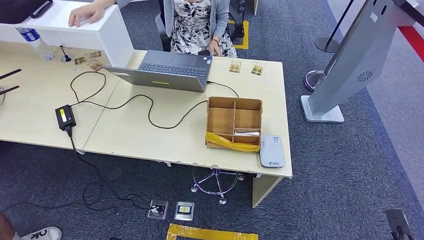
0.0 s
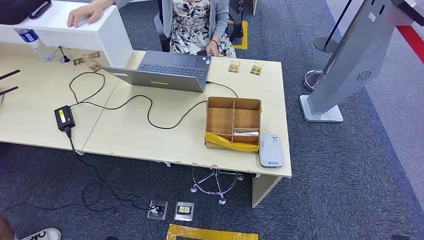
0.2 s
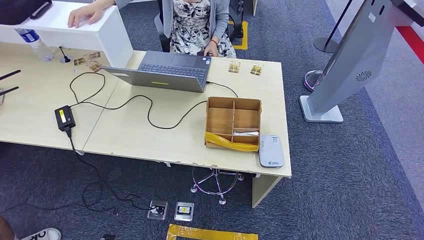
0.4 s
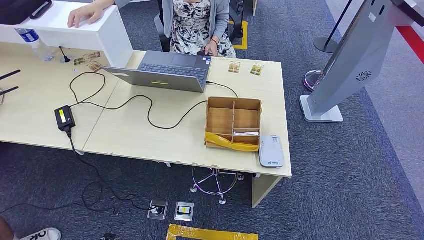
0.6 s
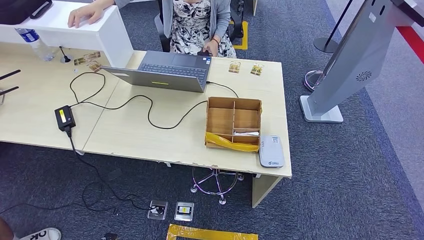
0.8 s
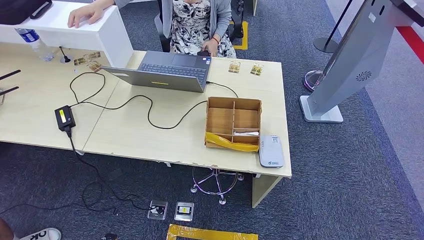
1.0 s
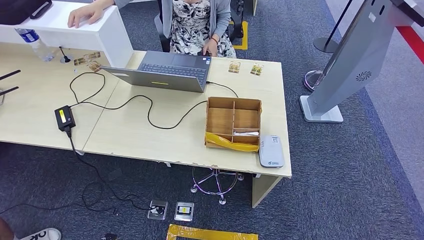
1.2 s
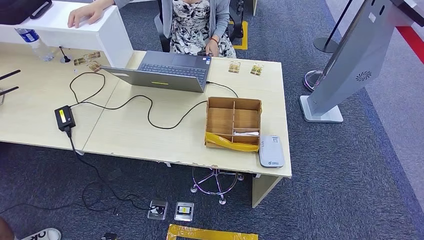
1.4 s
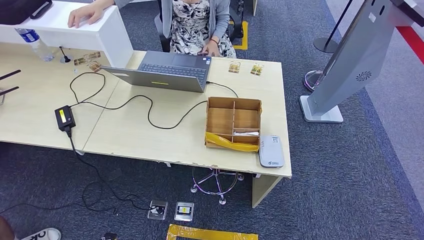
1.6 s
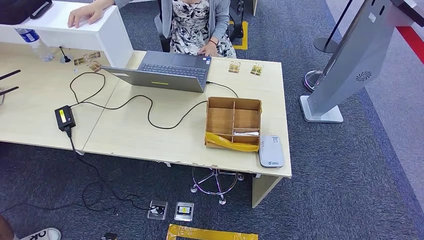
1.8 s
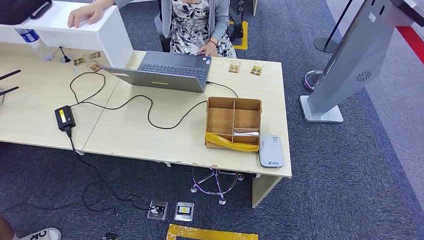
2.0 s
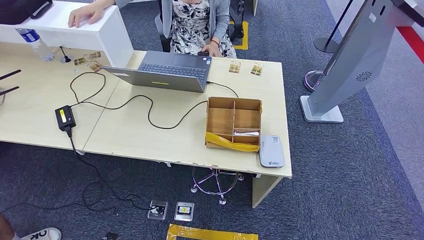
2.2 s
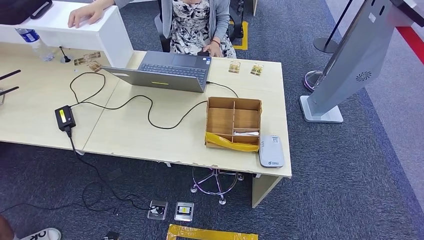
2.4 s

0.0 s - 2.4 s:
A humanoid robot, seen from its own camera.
Step, 0.0 s - 2.4 s: Hand the room key to the person.
0.0 s - 1.2 s: The right hand moves to the left, backward and downward, about 15 cm.

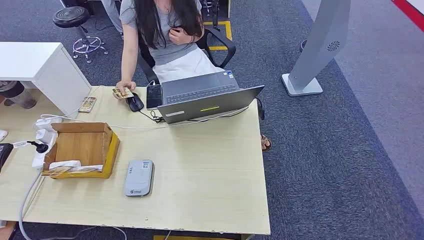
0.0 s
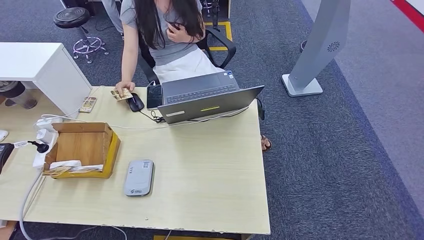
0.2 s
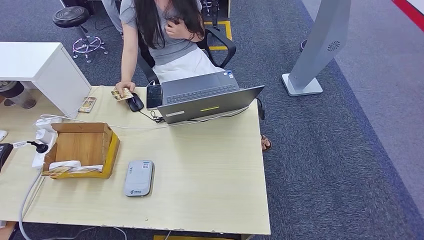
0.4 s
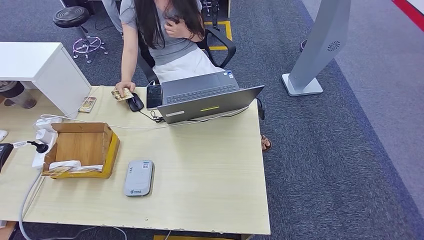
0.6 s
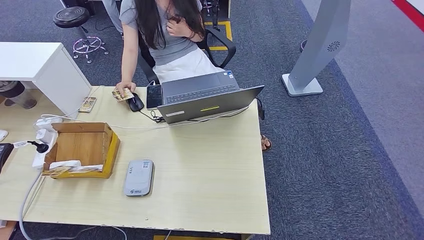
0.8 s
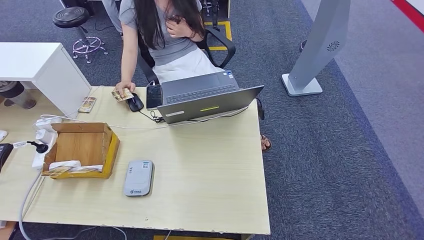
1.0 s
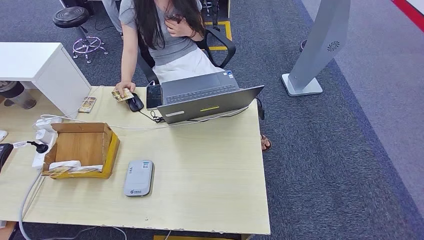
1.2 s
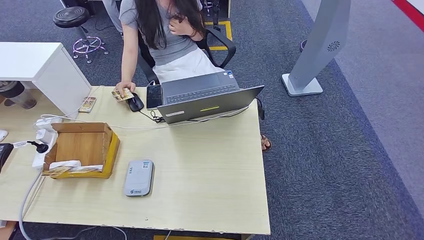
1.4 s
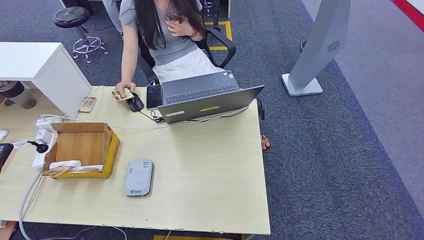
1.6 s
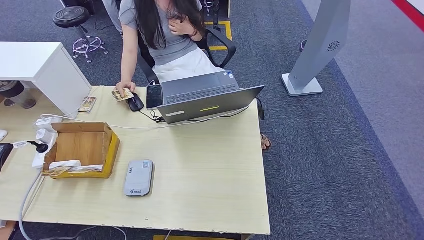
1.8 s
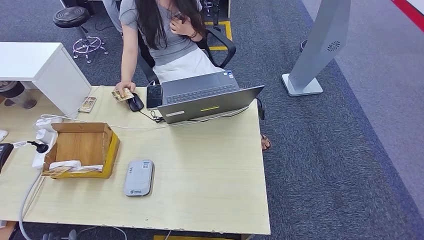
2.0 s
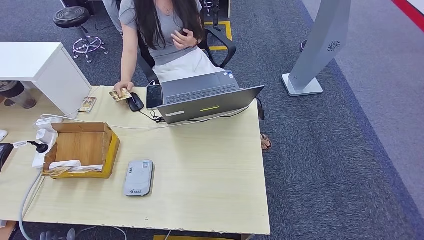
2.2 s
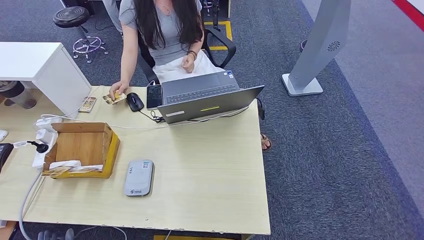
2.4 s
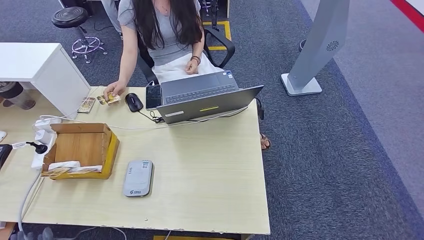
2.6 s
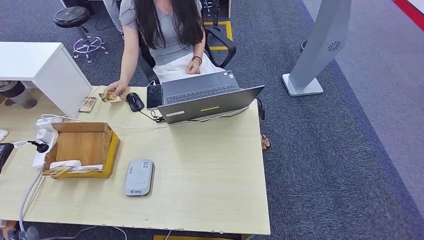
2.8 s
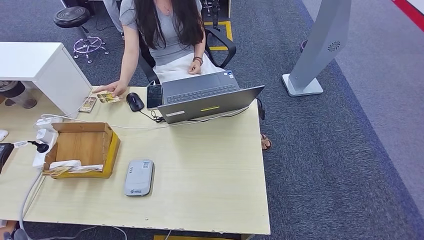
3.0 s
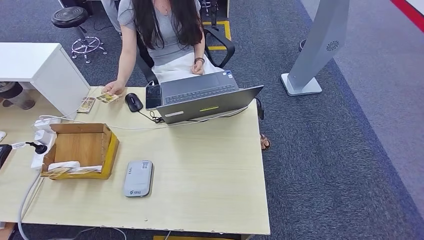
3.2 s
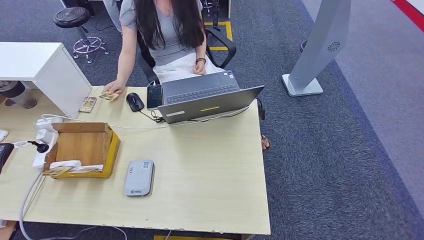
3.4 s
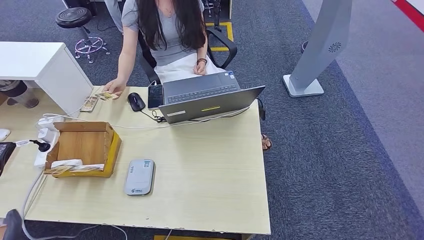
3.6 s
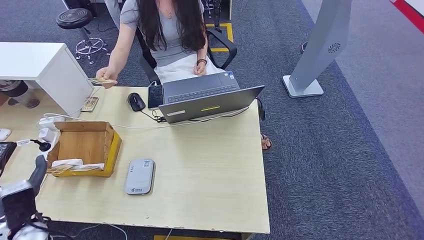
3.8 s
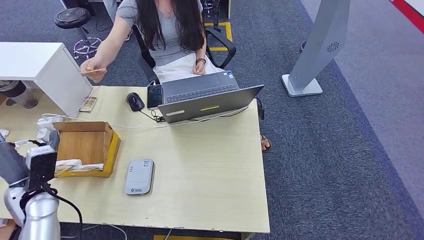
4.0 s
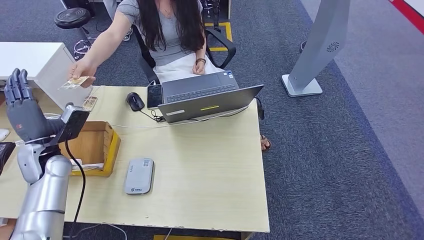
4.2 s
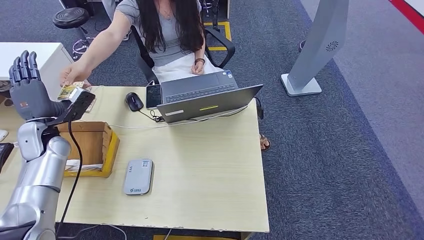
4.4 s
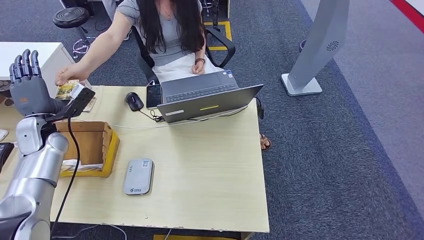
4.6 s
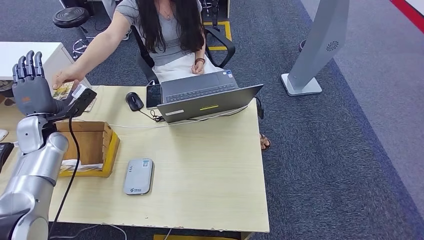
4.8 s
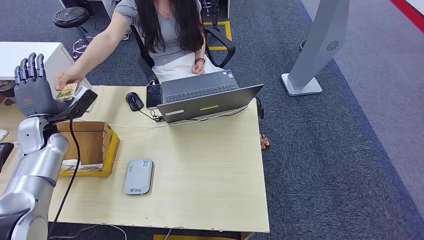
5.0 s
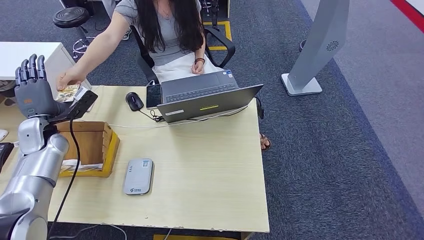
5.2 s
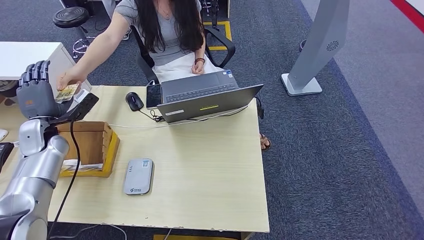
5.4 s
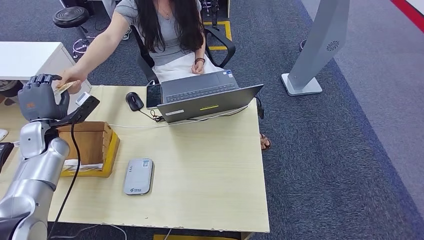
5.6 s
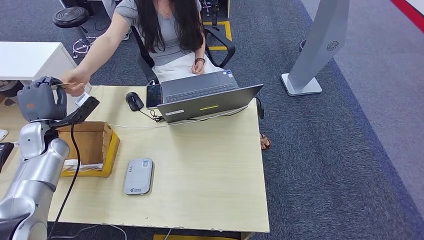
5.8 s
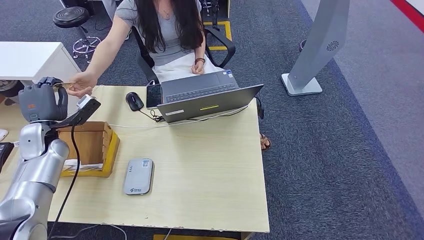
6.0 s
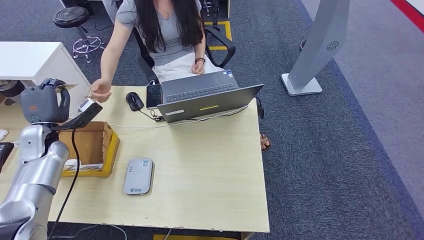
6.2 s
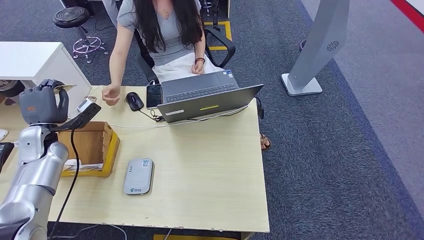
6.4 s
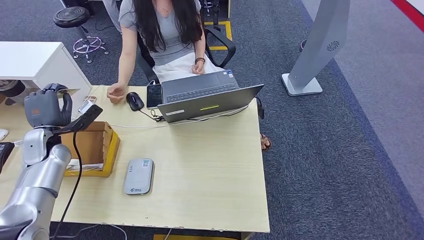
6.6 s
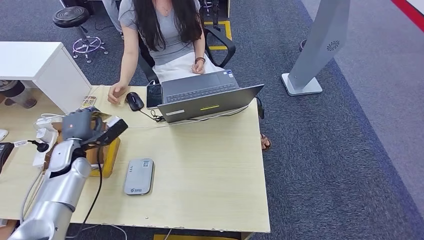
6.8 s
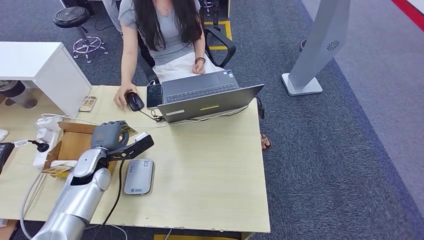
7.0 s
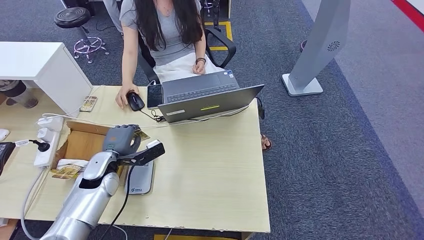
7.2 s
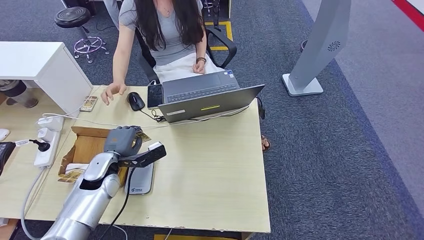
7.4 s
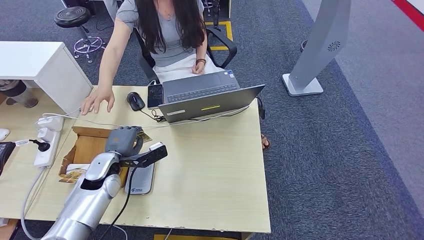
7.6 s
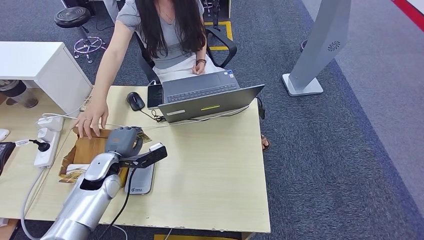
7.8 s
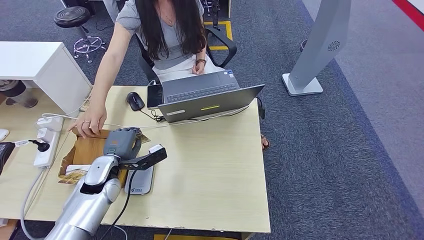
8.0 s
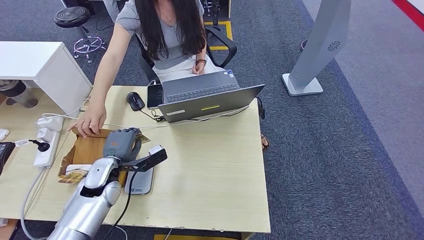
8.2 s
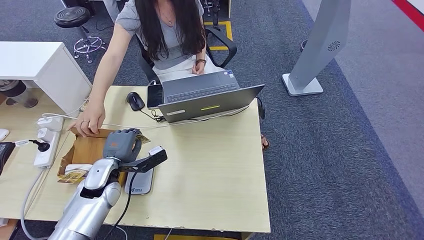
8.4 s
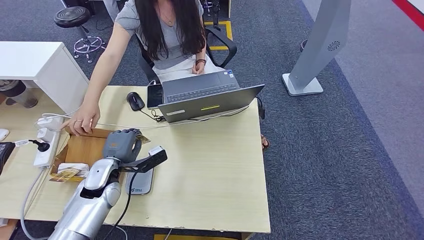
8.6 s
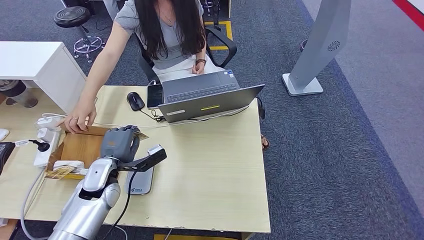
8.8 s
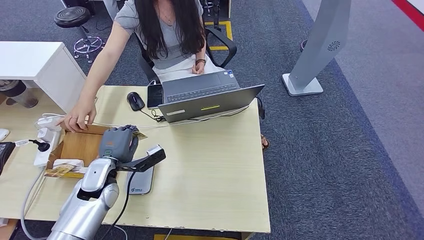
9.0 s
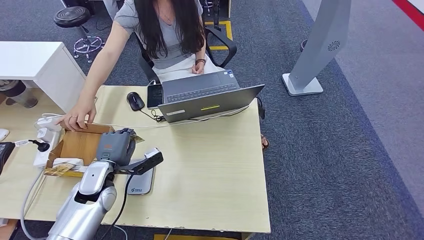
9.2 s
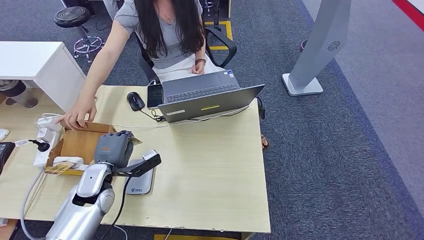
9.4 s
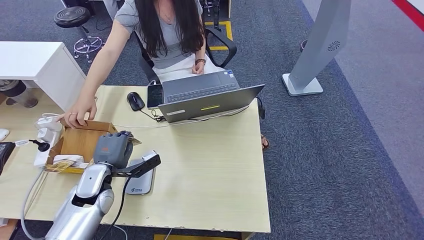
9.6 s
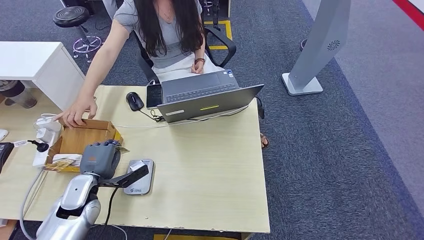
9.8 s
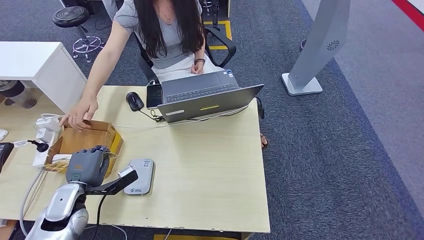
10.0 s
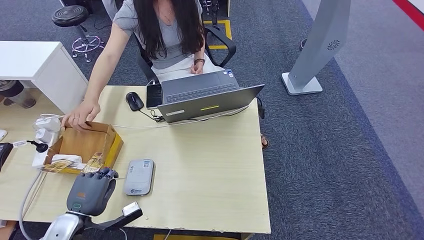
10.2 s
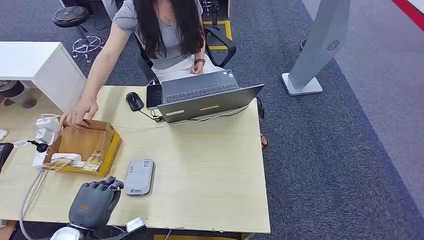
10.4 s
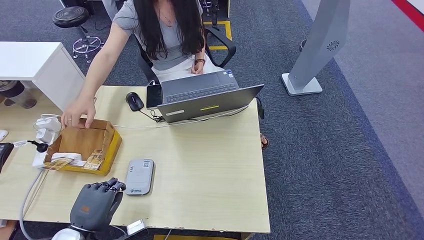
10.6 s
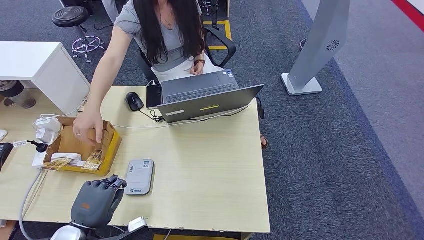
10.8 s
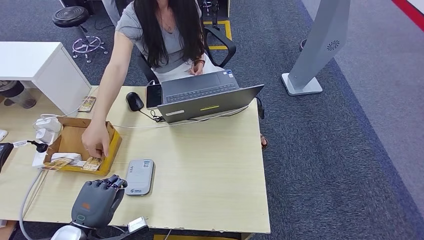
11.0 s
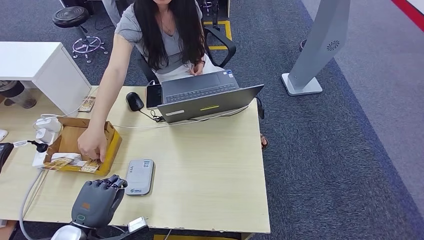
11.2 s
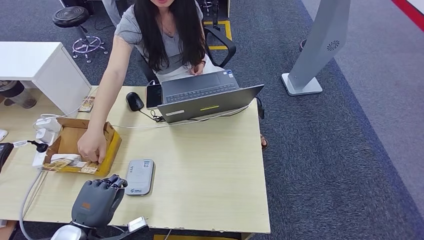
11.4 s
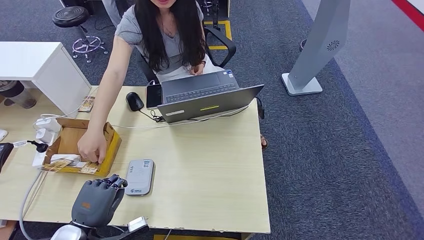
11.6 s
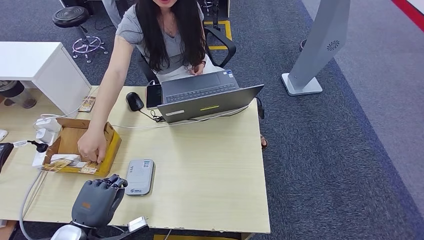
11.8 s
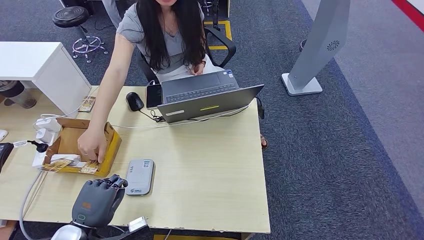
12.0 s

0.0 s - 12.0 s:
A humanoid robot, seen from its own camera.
Step, 0.0 s - 6.0 s: Take the ID card from the person's hand.
1.6 s - 3.0 s: The left hand travels upward by about 10 cm.
3.0 s - 4.4 s: The left hand moves forward and upward, roughly 35 cm.
4.4 s - 6.0 s: The hands make only small movements.
6.0 s - 7.6 s: The left hand goes some 20 cm to the right and downward.
7.6 s - 9.0 s: The hands move only a little.
9.0 s - 10.4 s: The left hand moves backward, approximately 15 cm.
10.4 s - 12.0 s: Both hands stay about where they are.

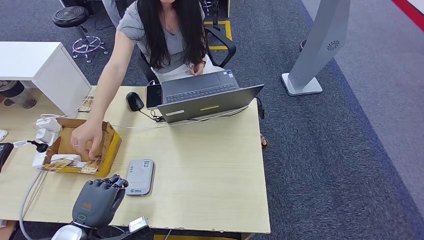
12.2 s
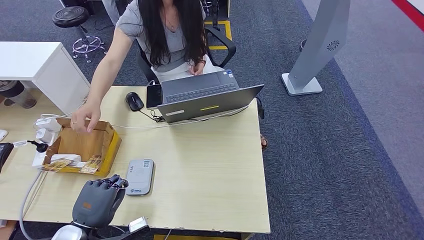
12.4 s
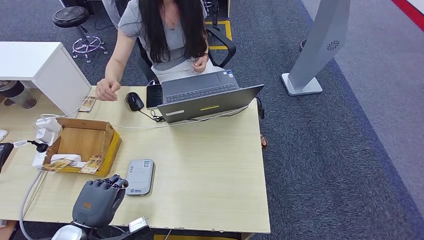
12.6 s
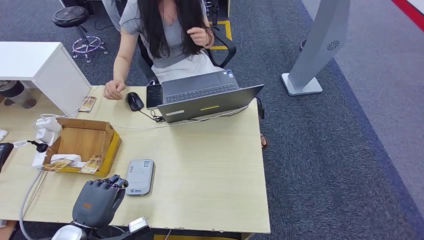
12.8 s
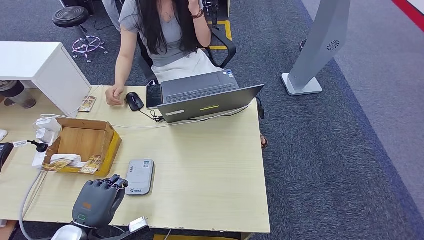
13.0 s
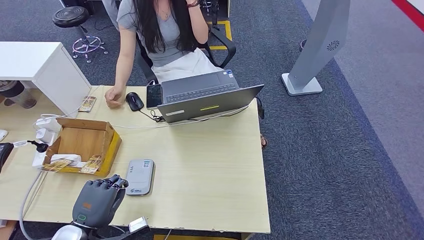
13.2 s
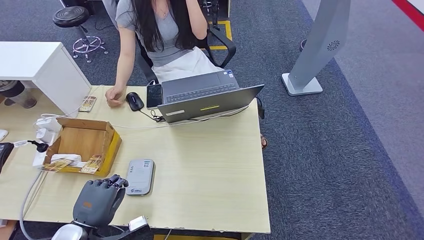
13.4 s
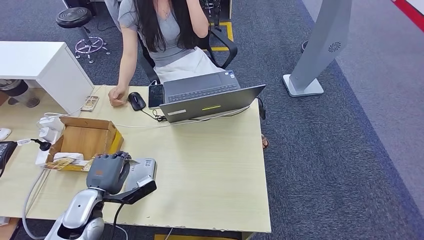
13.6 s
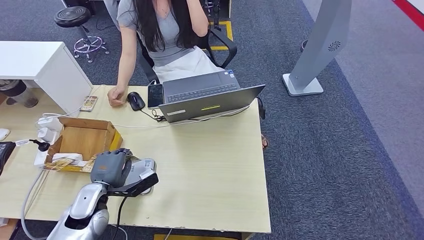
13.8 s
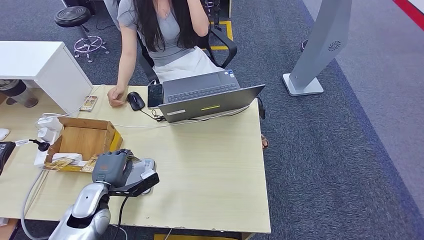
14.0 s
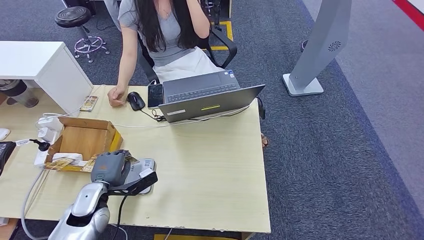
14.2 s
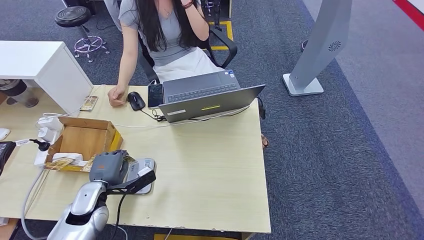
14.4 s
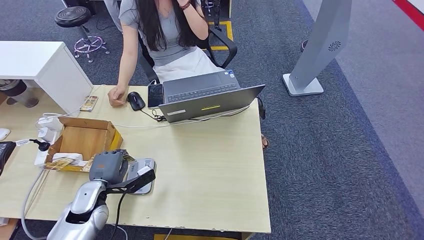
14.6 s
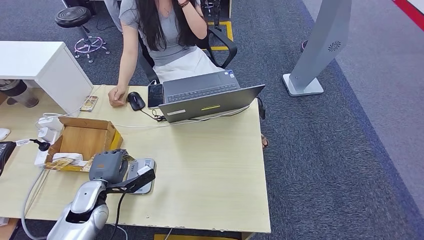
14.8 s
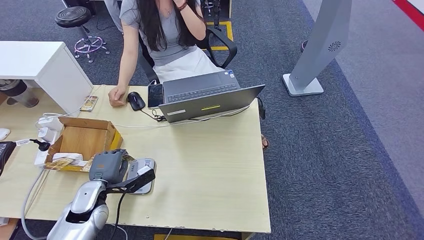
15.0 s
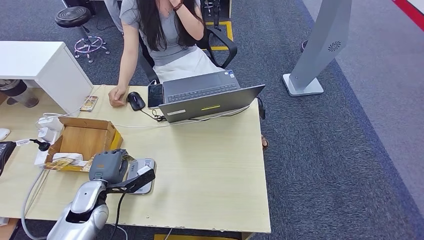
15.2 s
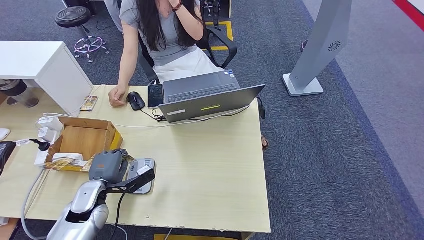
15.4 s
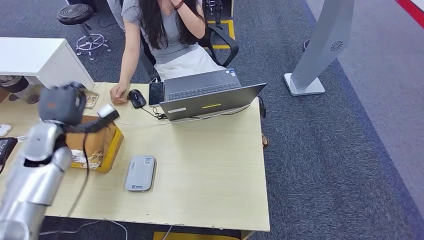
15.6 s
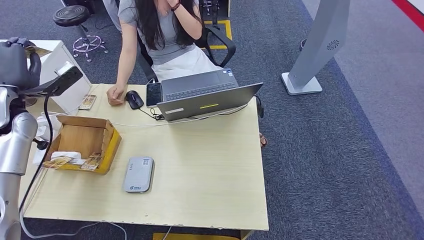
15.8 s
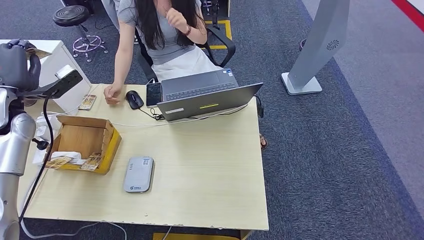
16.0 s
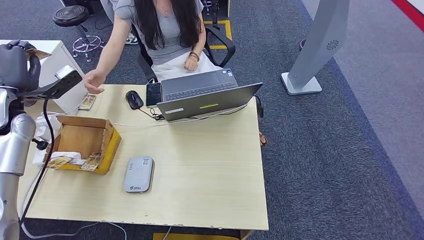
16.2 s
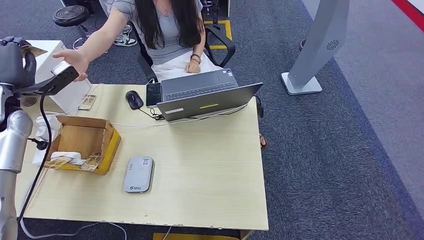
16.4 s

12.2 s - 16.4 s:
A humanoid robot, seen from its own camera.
Step, 12.2 s - 14.6 s: Place the ID card on the card reader.
12.2 s - 13.6 s: The left hand shifts roughly 10 cm forward.
13.6 s - 15.0 s: There are only small adjustments of the hands.
